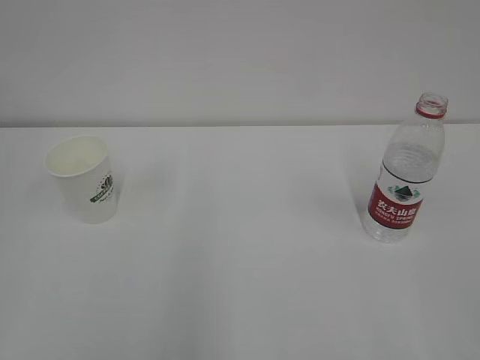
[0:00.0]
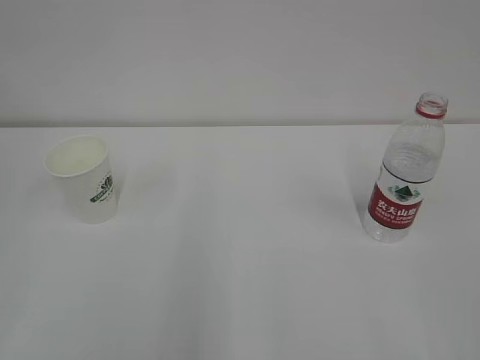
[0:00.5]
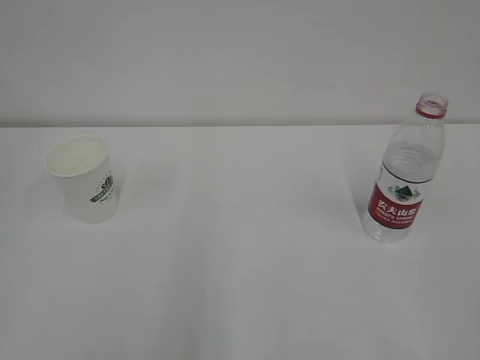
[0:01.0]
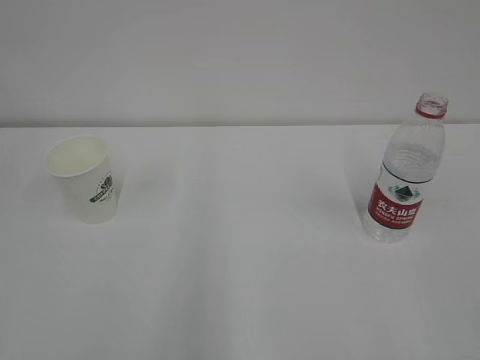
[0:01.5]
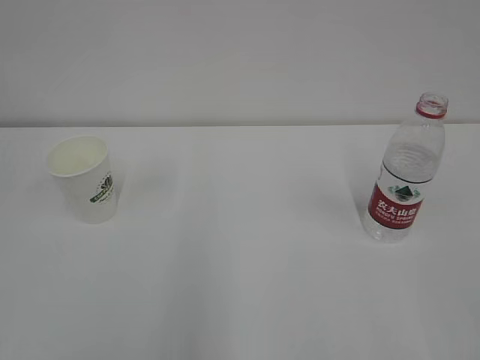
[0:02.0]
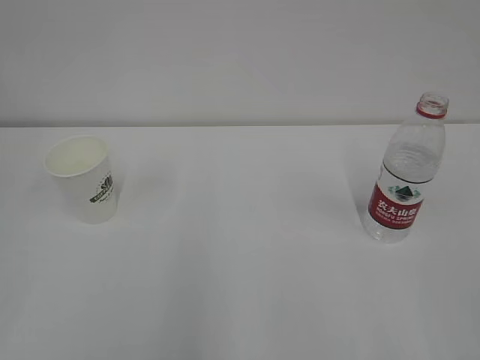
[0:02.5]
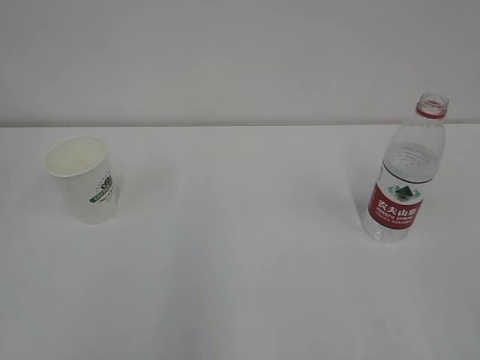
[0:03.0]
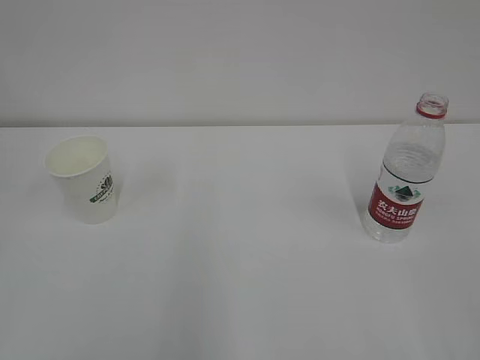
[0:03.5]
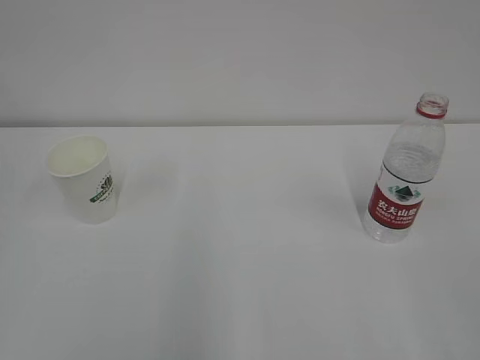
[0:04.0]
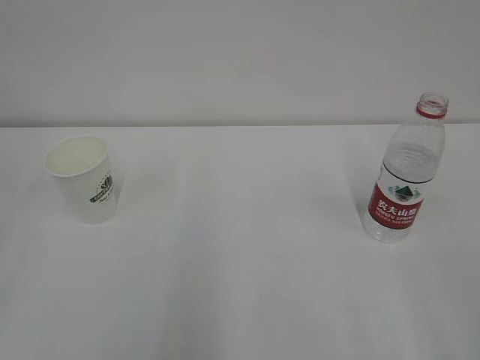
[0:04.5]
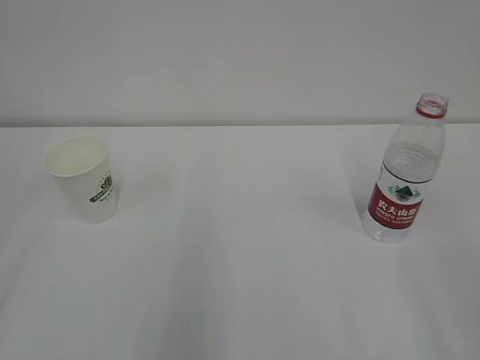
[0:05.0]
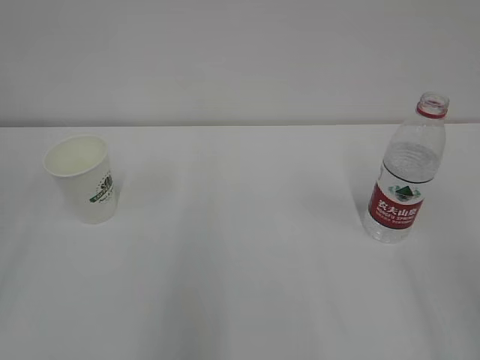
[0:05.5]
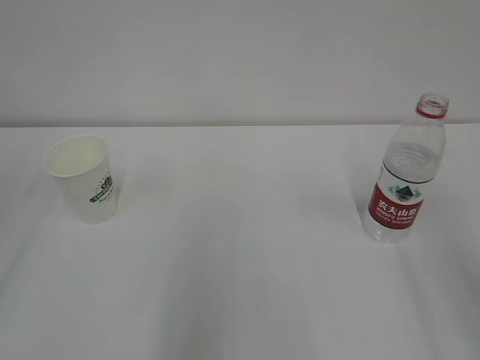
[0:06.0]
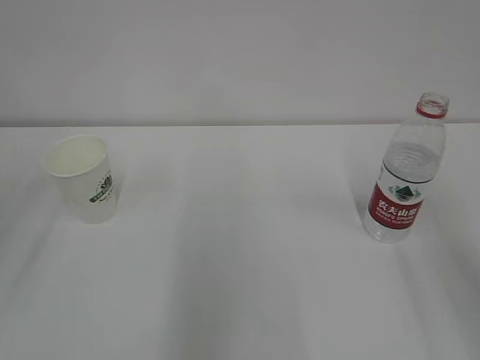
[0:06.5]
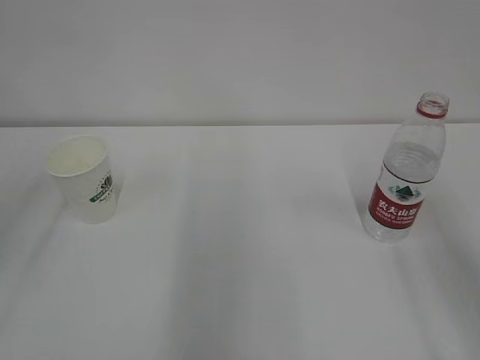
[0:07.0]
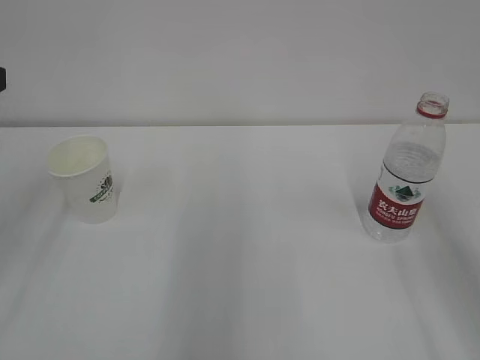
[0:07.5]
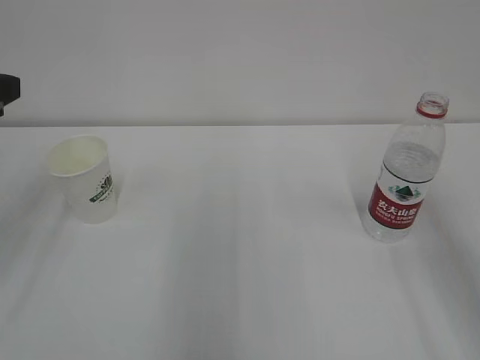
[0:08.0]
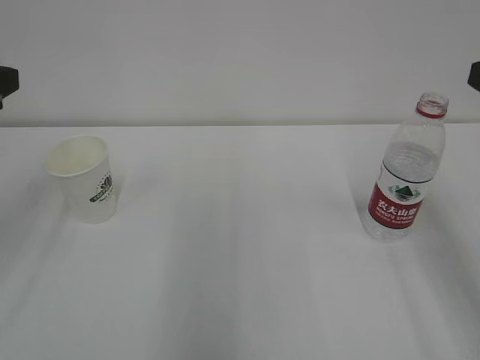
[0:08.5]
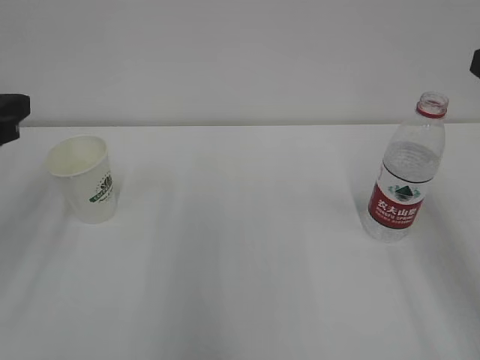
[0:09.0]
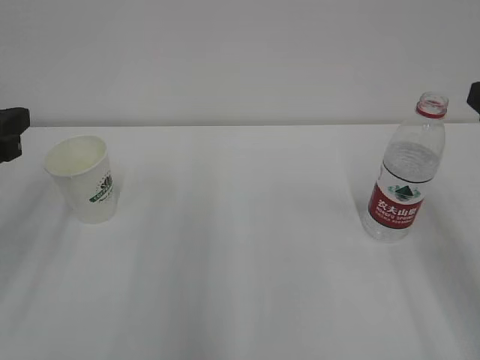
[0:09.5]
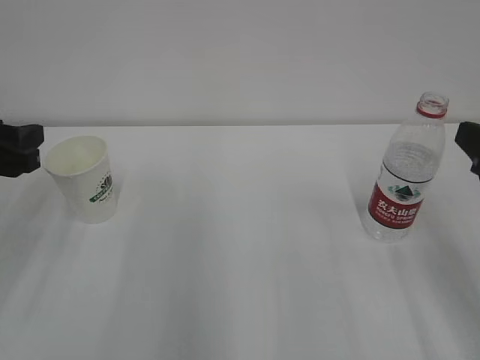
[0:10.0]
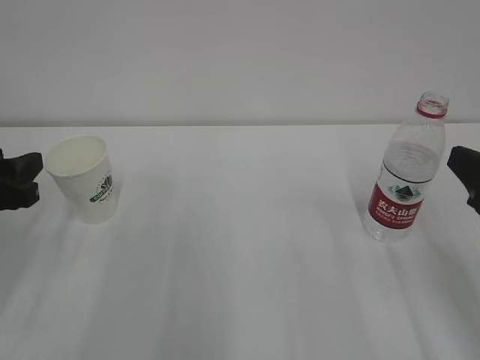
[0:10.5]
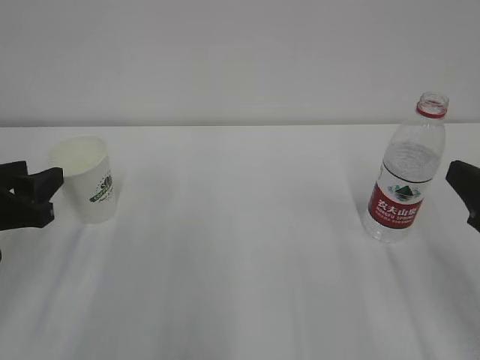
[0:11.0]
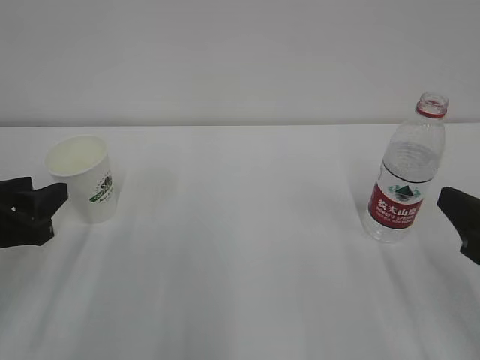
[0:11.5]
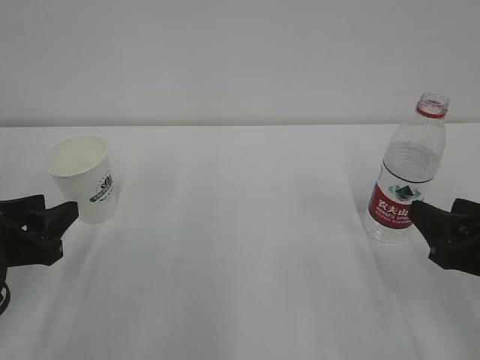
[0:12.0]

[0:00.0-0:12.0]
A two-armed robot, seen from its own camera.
8.0 to 10.0 s: The left gripper is displaced downward by approximately 10 cm.
10.0 to 12.0 s: Both grippers travel together downward, some 10 cm.

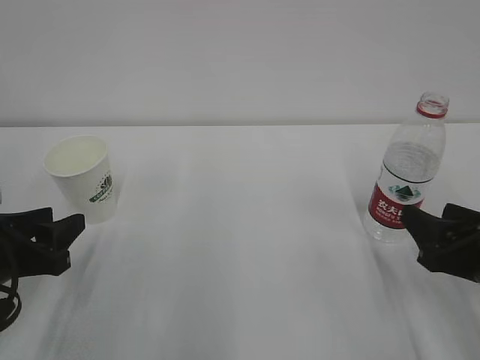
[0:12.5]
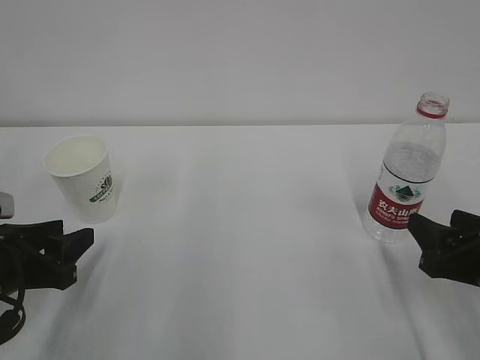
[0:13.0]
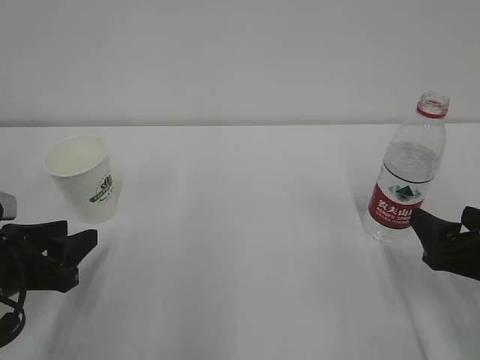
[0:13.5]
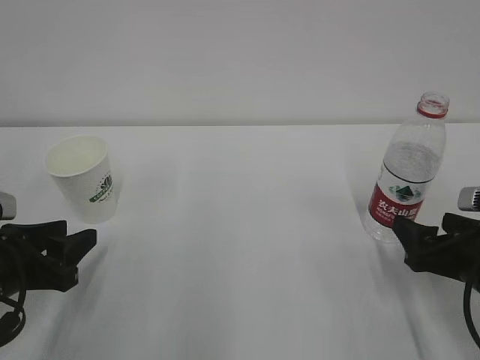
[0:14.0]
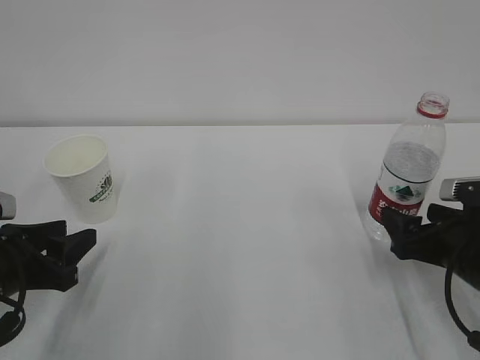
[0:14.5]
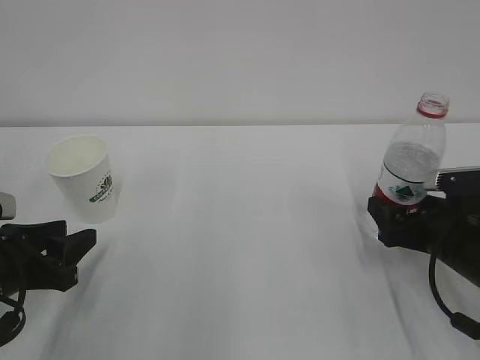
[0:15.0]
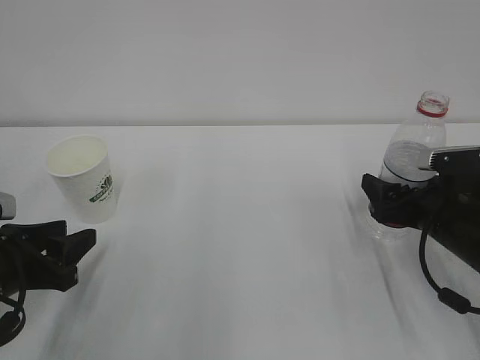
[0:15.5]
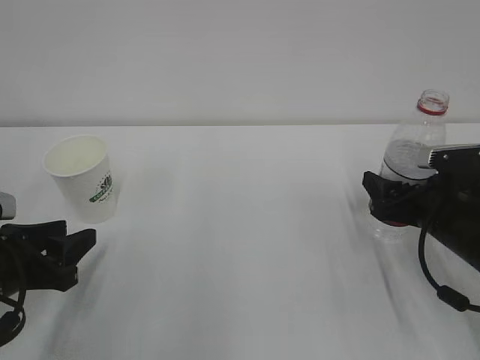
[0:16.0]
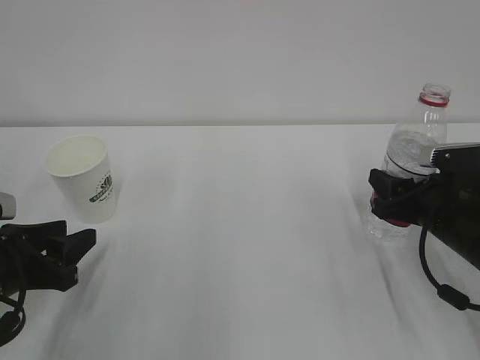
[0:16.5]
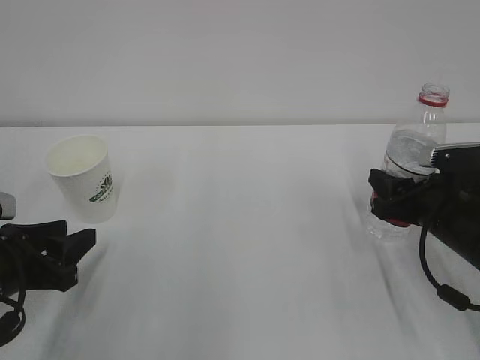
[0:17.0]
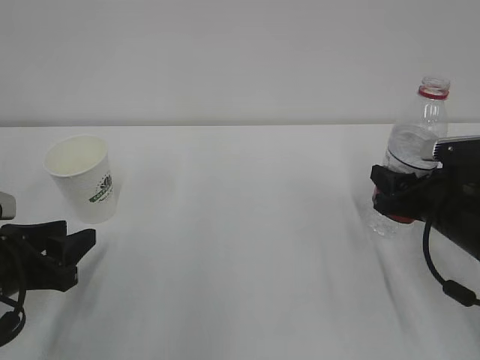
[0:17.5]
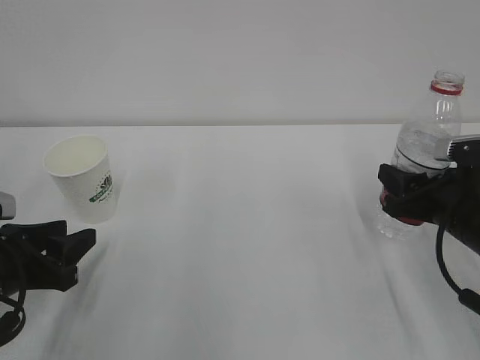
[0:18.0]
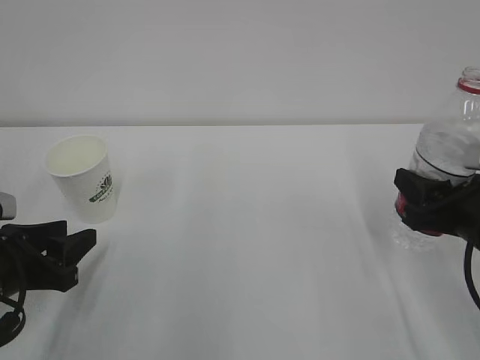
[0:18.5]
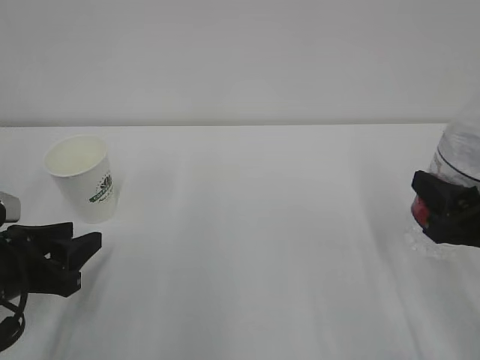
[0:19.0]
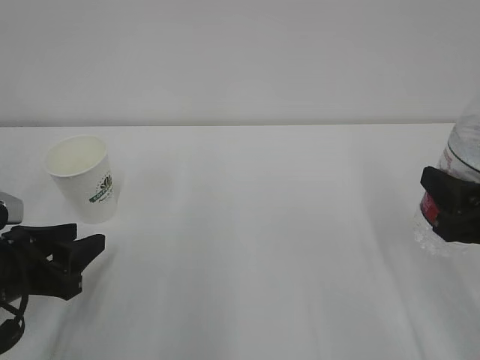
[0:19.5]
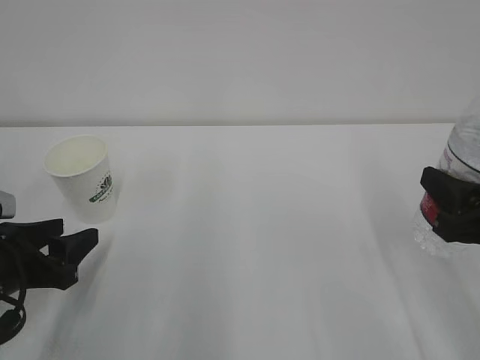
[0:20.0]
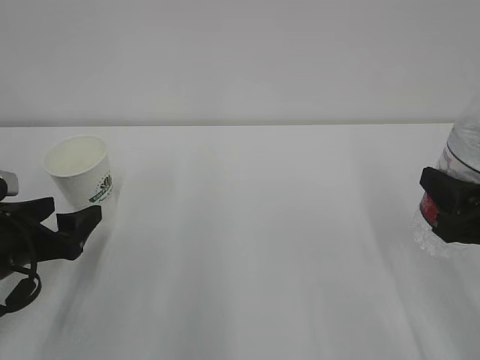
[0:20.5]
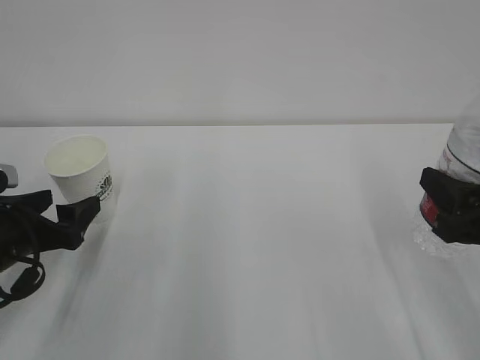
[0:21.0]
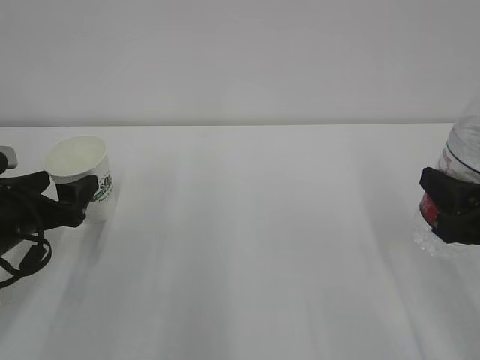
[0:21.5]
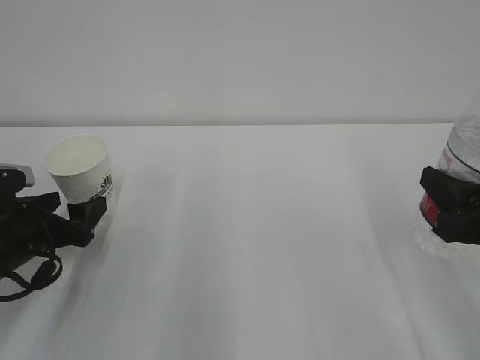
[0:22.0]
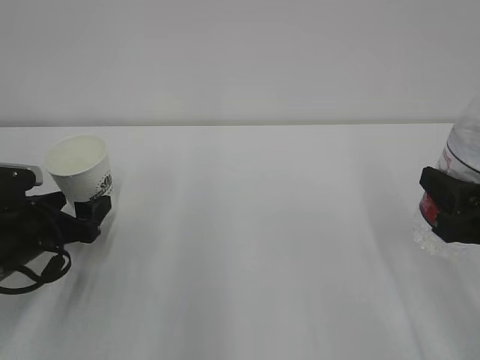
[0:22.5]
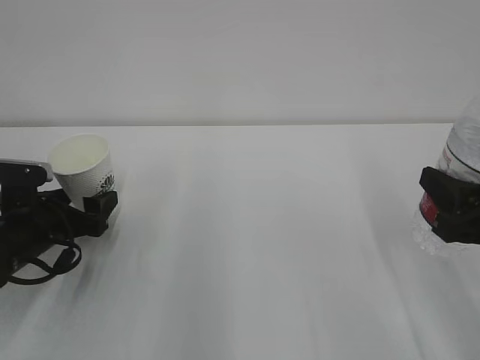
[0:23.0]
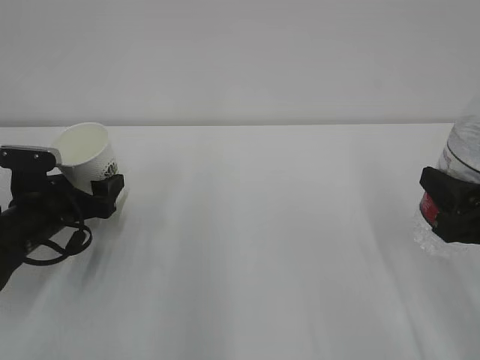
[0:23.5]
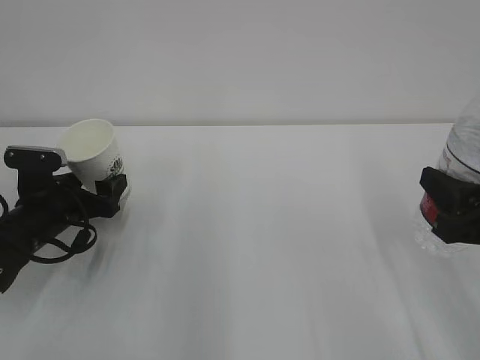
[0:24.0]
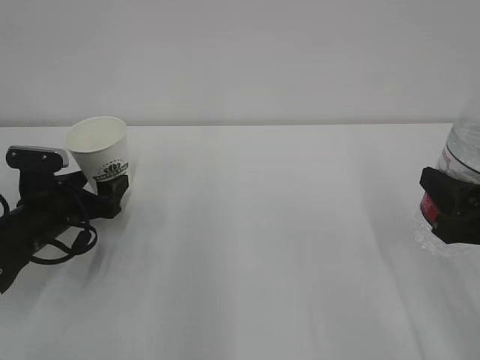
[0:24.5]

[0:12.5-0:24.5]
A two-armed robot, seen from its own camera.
12.5 to 14.5 s: The right gripper shifts by about 5 cm, and opens up.
14.5 to 16.5 s: The right gripper closes.
16.5 to 18.5 s: The right gripper goes about 5 cm backward.
18.5 to 20.5 s: The right gripper changes place by roughly 5 cm. Meanwhile the left gripper opens up.
20.5 to 22.5 s: The grippers make only small movements.
22.5 to 24.5 s: The left gripper shifts by approximately 5 cm.

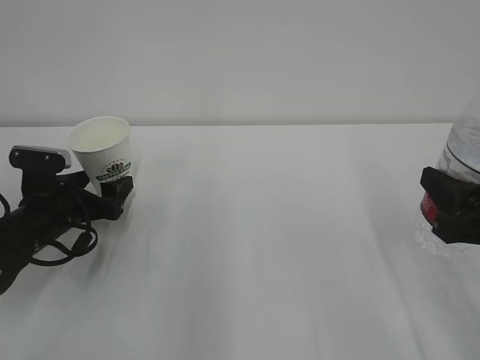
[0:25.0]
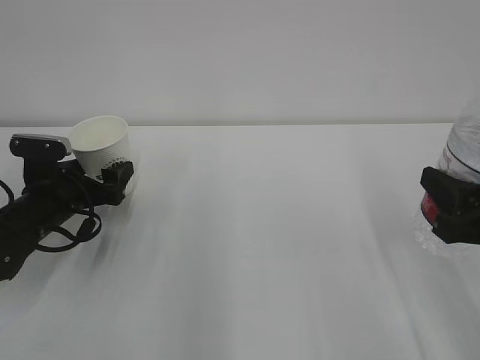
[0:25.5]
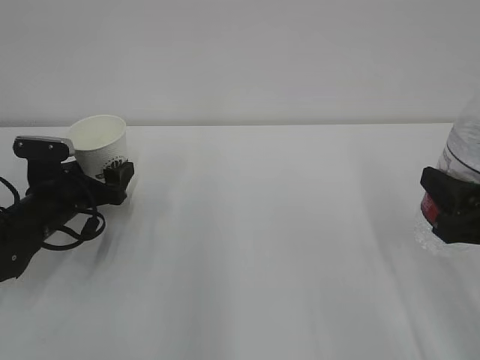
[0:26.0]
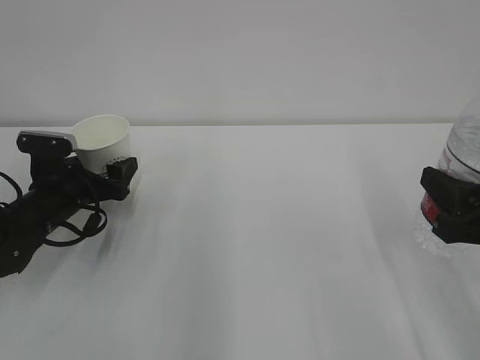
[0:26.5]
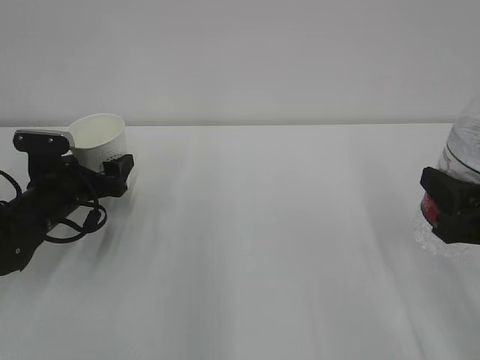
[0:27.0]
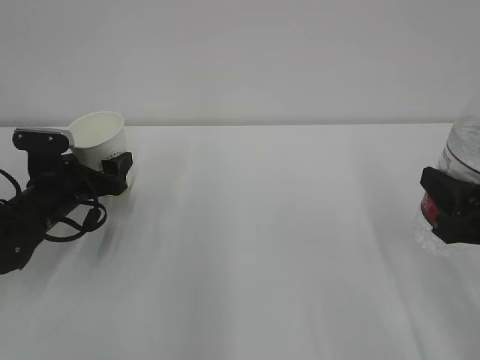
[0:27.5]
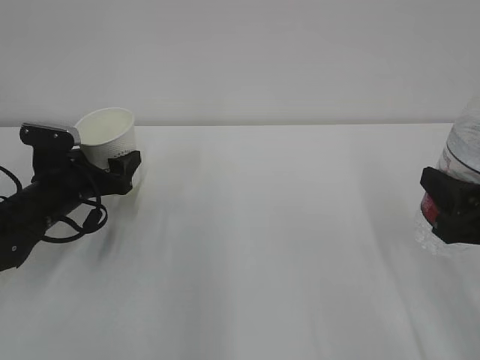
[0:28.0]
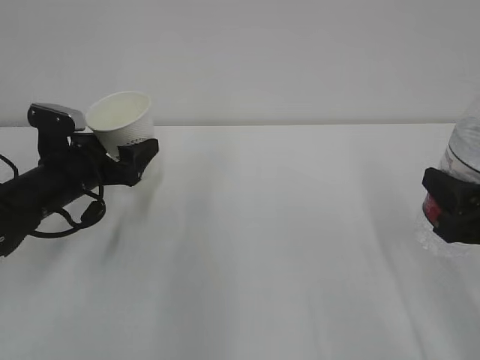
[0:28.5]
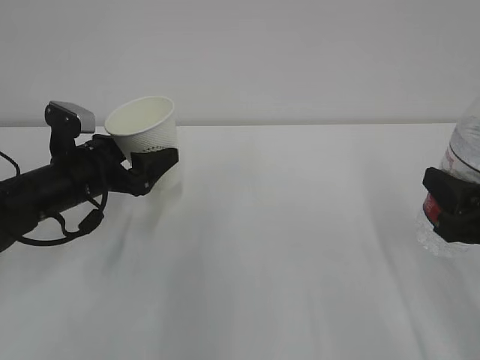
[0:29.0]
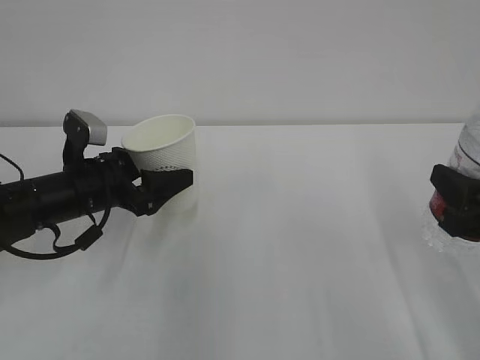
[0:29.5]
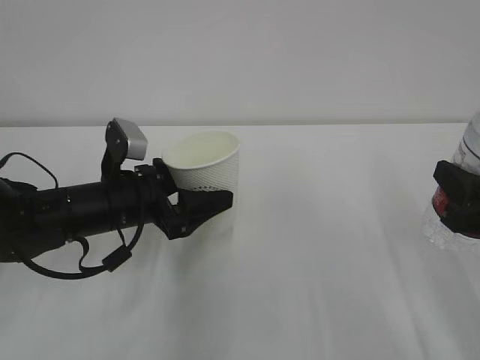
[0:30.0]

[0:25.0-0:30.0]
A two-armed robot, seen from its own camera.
25.0 to 27.5 s: The grippers make only small movements.
27.5 to 30.0 s: The left gripper travels to the right and backward by about 10 cm.
